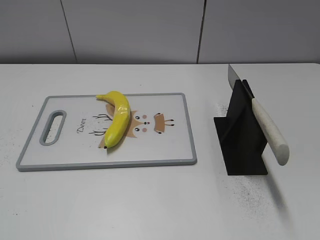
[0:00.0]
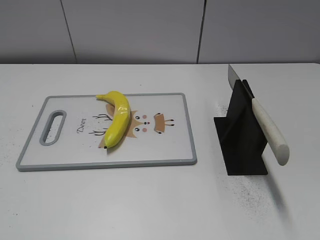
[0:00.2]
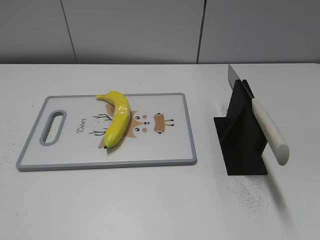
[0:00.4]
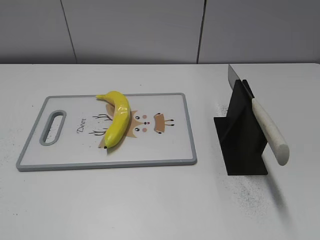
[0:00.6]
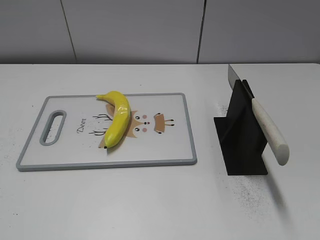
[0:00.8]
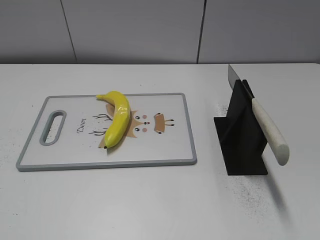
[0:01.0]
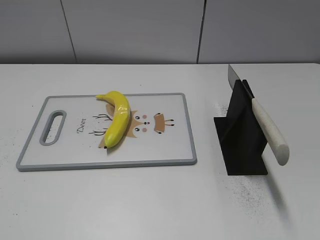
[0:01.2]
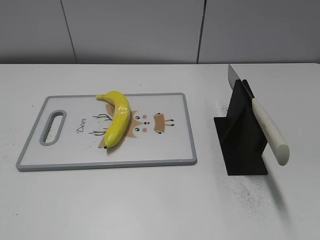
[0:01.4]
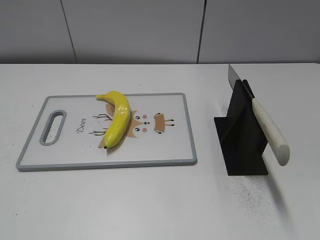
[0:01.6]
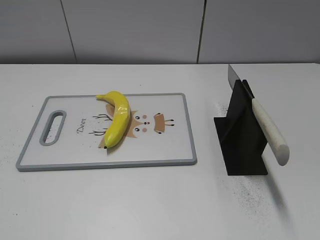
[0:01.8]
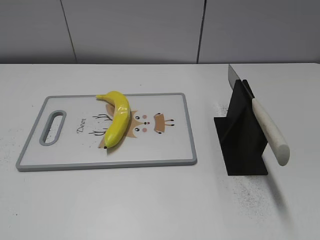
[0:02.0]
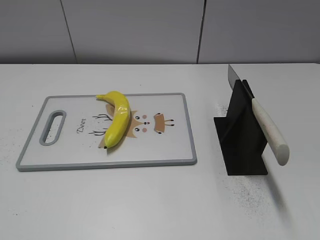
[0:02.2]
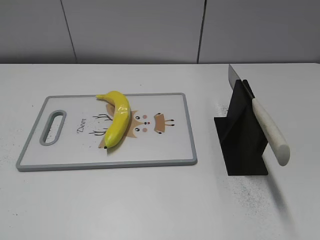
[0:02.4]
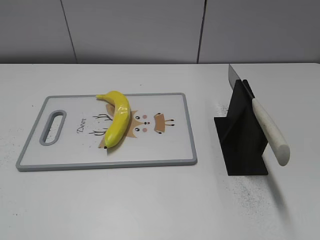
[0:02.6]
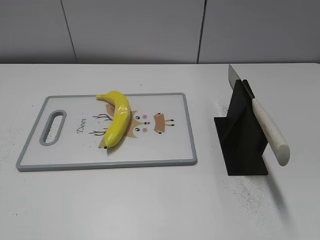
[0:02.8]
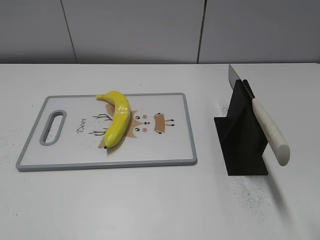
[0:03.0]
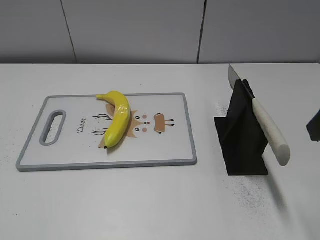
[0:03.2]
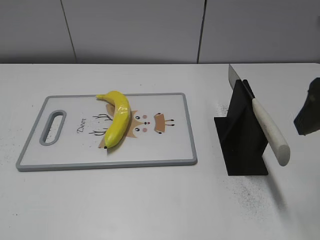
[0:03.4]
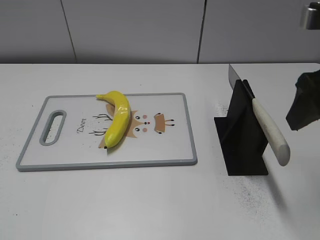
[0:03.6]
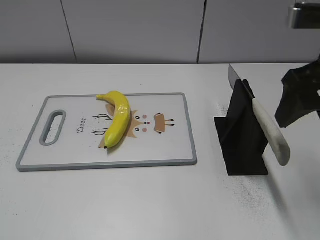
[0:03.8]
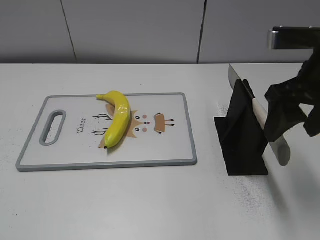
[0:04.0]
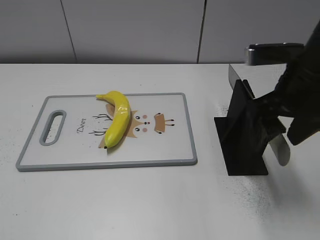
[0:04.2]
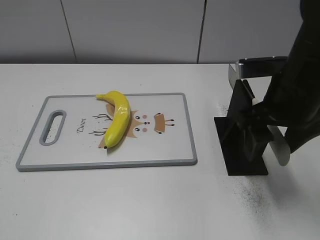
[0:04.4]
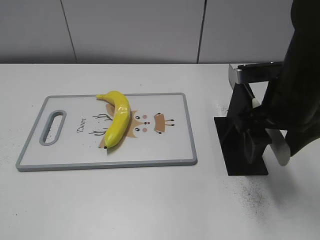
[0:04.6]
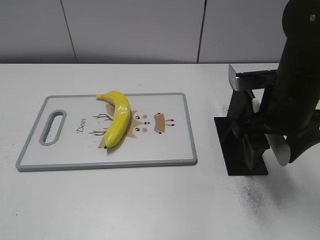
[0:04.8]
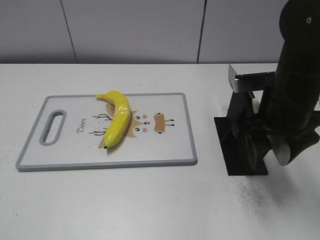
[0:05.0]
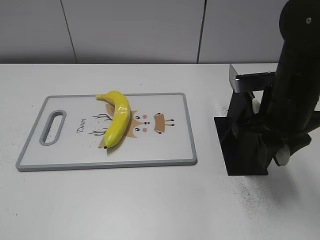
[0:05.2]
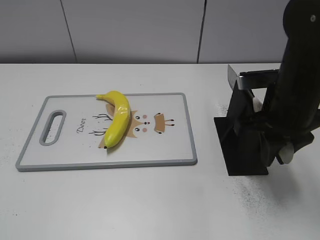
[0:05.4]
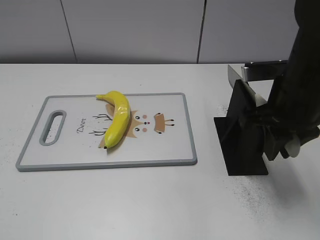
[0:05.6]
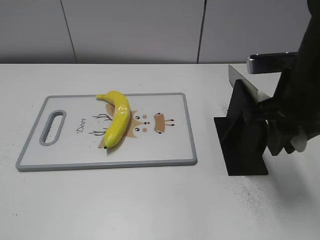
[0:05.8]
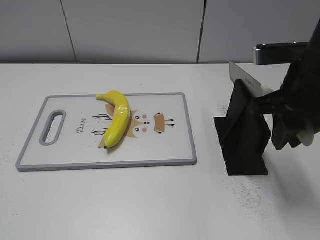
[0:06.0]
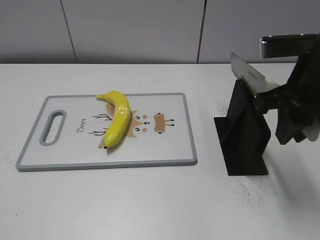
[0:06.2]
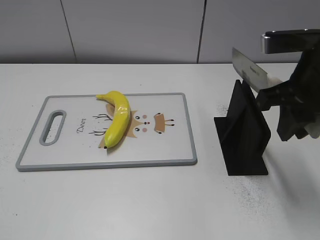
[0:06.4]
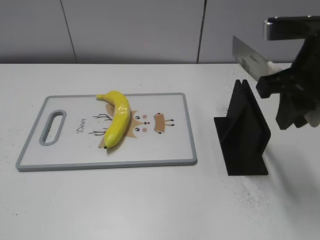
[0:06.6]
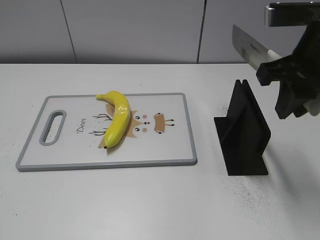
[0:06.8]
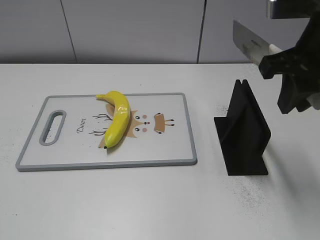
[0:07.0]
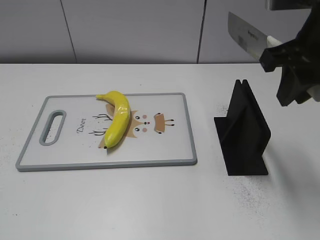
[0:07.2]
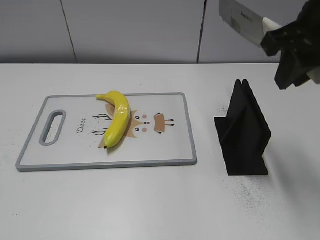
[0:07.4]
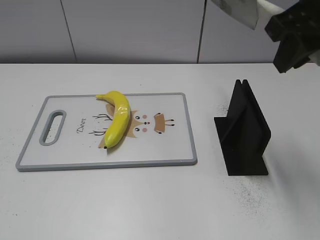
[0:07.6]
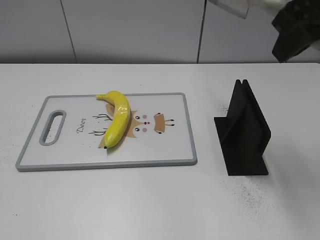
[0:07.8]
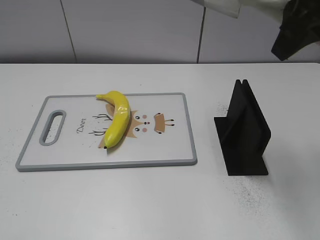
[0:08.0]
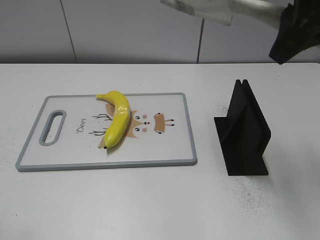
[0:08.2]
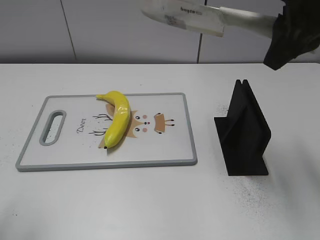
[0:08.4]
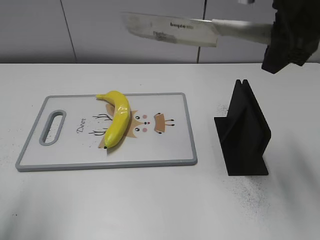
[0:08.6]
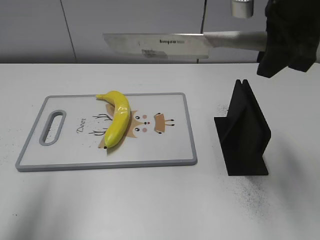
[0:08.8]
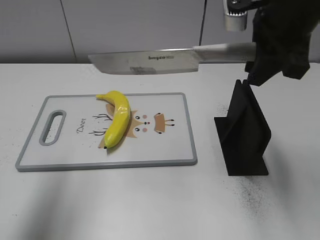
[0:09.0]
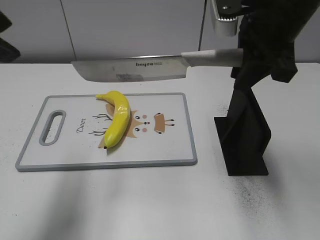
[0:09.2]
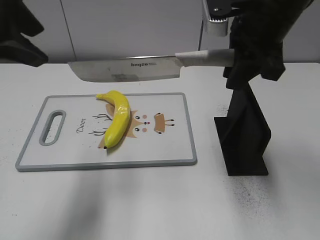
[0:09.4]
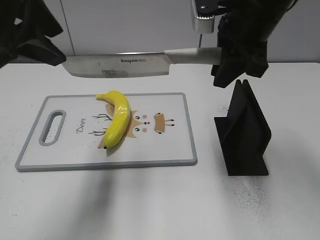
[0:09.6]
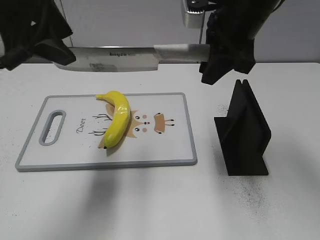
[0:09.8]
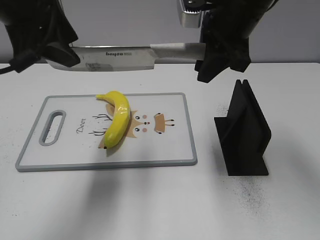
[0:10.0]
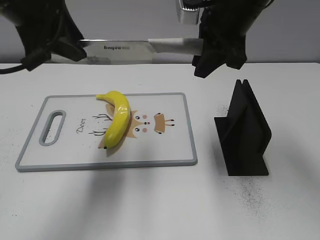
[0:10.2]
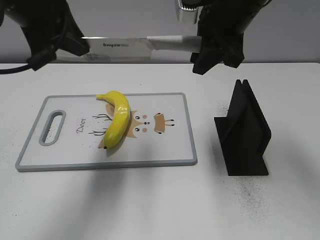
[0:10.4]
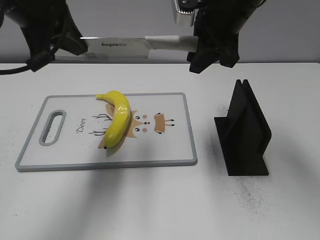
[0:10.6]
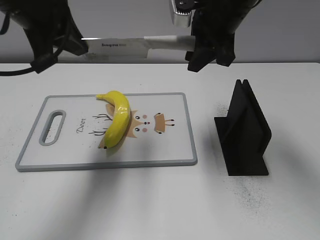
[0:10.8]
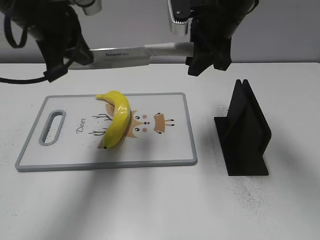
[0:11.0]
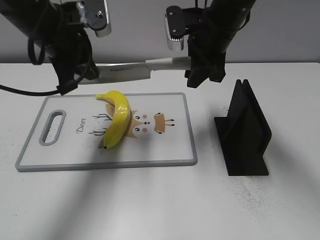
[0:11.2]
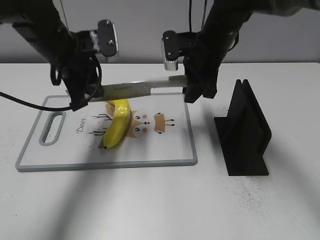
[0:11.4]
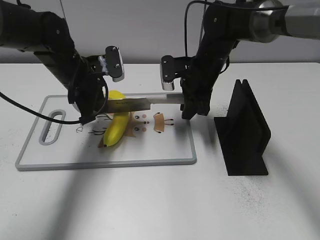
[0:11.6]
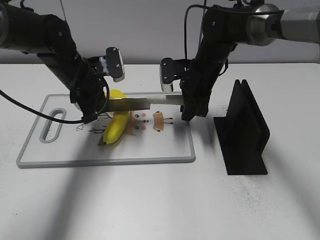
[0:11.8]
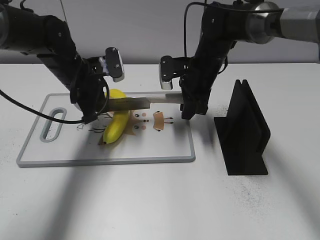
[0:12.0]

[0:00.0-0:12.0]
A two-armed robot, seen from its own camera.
Task of the whole recording: cut plastic banana.
Step, 0:00.0 to 0:06.6: Grab the knife handle with your right hand.
0:03.0 to 0:04.4: The right gripper heads forward, downward and to the left, covering approximately 15 cm.
0:04.4 to 0:06.0: The right gripper closes its fingers.
0:06.0 to 0:07.6: The right gripper travels upward by roughly 10 cm.
0:07.6 to 0:09.0: The right gripper ends up some 5 cm from where it was. The left gripper heads forward and upward, covering approximately 20 cm.
0:09.0 to 0:10.4: The left gripper moves forward and to the right, roughly 15 cm, and closes its fingers. Meanwhile the right gripper is displaced forward by about 5 cm.
0:10.4 to 0:12.0: The grippers both shift downward and forward by roughly 20 cm.

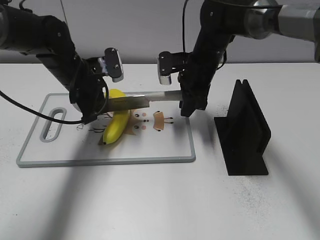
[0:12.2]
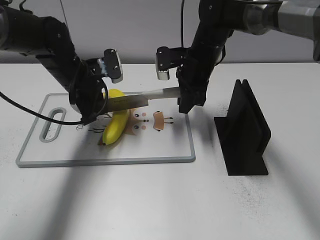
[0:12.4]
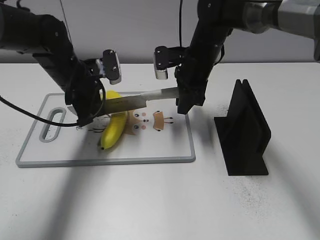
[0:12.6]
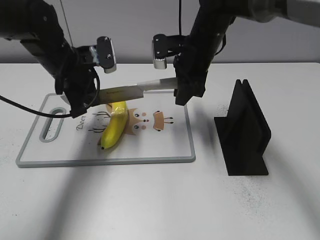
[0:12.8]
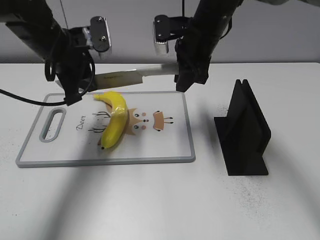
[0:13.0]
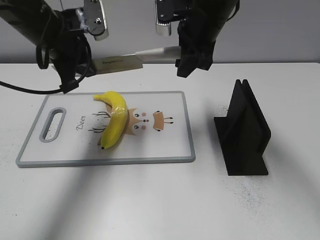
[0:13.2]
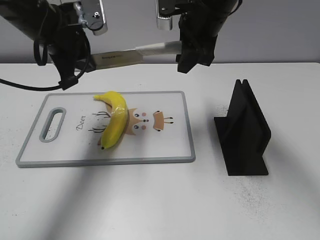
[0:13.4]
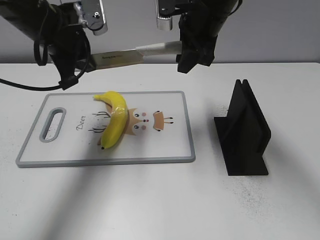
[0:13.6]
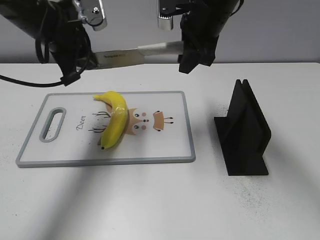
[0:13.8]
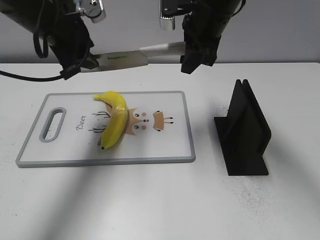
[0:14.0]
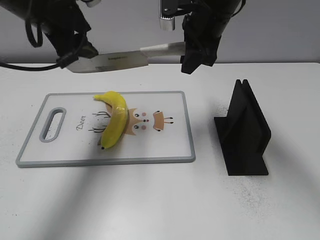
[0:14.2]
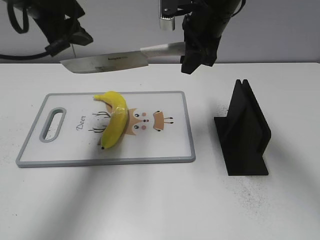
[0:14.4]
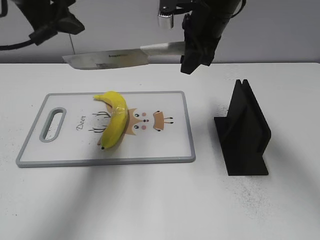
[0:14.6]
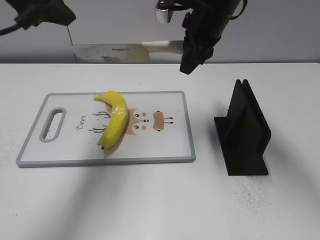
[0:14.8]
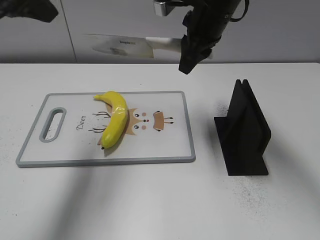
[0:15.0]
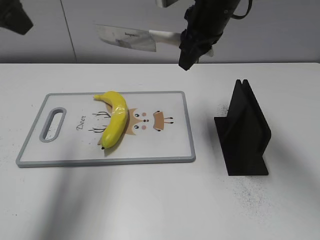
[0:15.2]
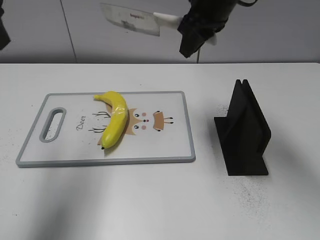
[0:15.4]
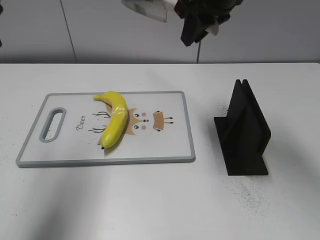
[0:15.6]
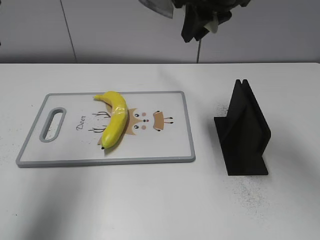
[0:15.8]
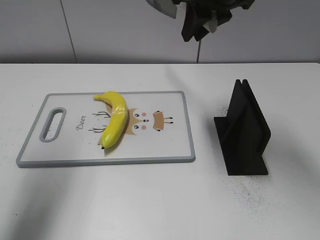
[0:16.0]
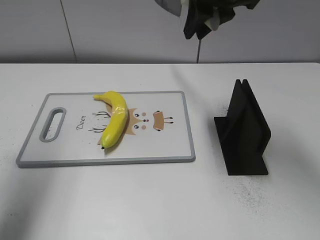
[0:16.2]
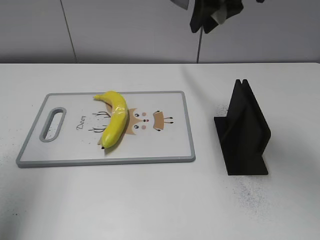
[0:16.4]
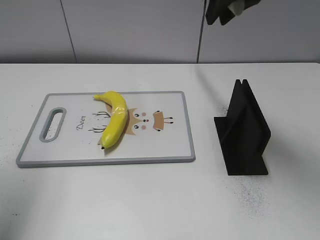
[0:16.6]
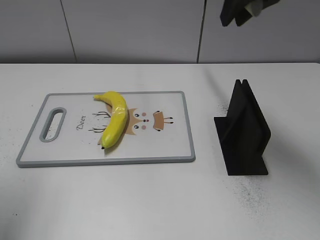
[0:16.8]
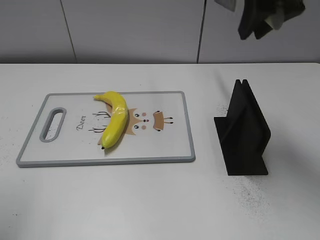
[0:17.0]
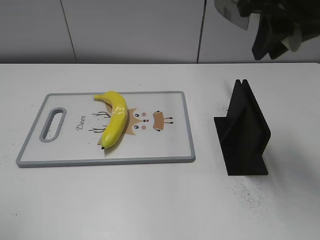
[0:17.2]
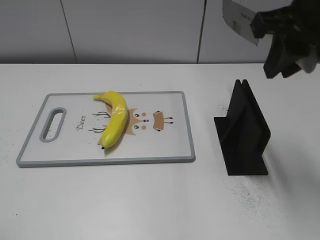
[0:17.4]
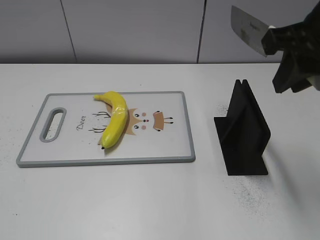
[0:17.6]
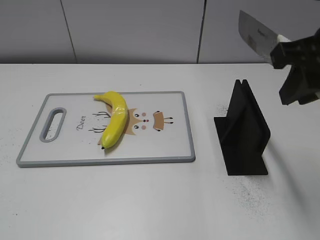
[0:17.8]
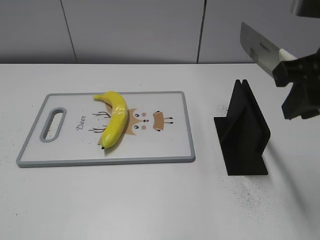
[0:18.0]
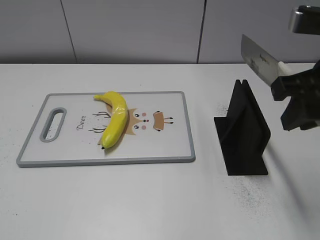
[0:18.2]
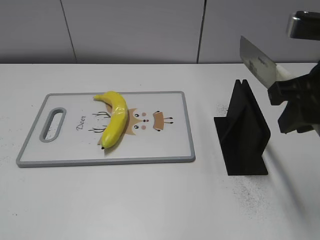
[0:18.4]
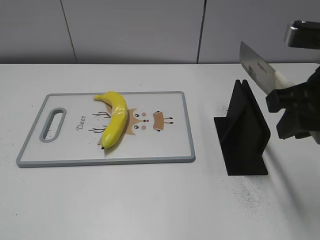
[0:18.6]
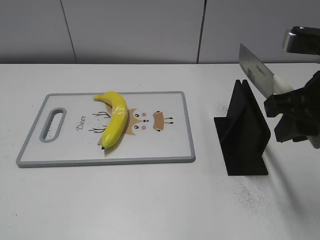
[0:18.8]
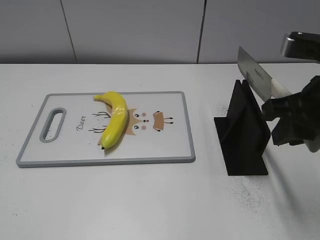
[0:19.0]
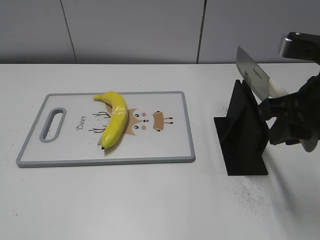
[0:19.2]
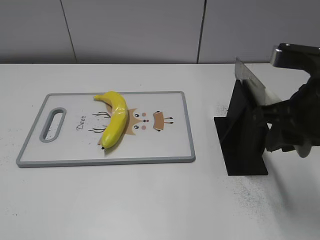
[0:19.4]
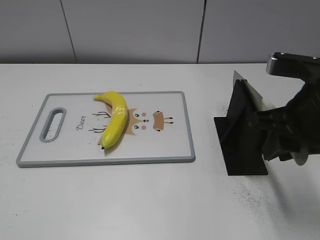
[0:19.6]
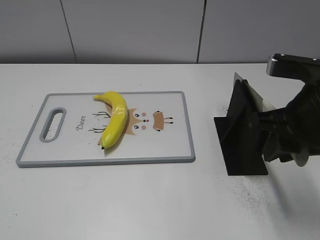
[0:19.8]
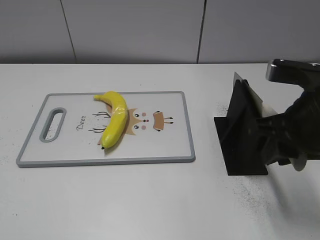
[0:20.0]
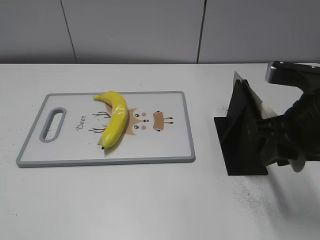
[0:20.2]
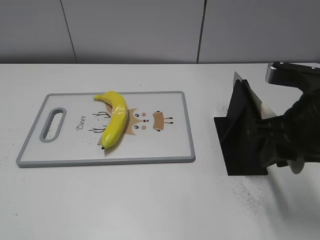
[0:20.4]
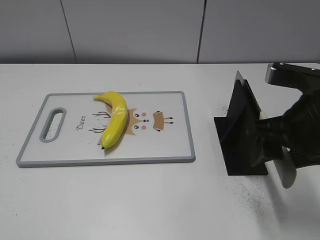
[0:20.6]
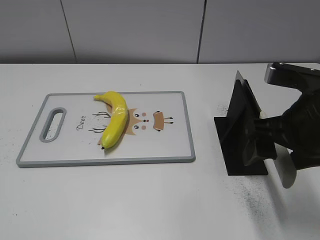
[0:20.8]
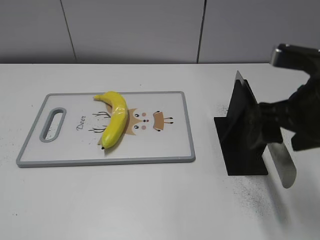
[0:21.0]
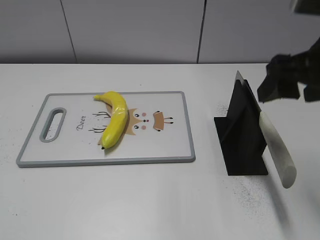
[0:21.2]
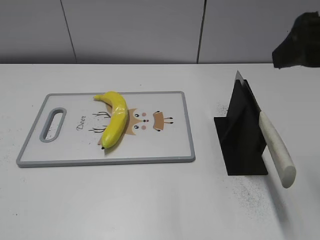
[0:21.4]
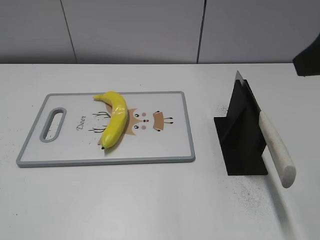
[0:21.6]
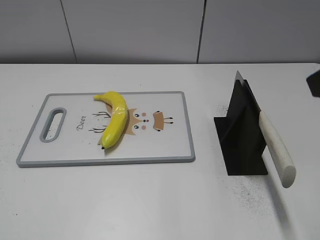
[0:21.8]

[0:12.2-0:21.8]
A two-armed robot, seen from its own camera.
Task of the whole recording: cut plastic banana.
Step, 0:13.6 to 0:15.6: Cut the banana with your right hand.
Step, 0:15.8 to 0:17.4: Secure the blade with your left hand.
0:12.2 to 0:13.8: The grippers both shift upward by about 10 cm.
0:13.8 to 0:15.4: The left gripper moves upward, backward and to the left, approximately 15 cm, and opens.
0:15.4 to 0:17.0: The right gripper is displaced backward, upward and to the right by about 15 cm; the left gripper shifts approximately 15 cm backward and to the left.
0:17.0 to 0:18.6: The two grippers go some 15 cm backward and downward.
0:18.6 to 0:20.2: The right gripper goes some 5 cm downward.
0:20.2 to 0:21.8: The right gripper shifts roughly 15 cm upward and backward, and opens.
